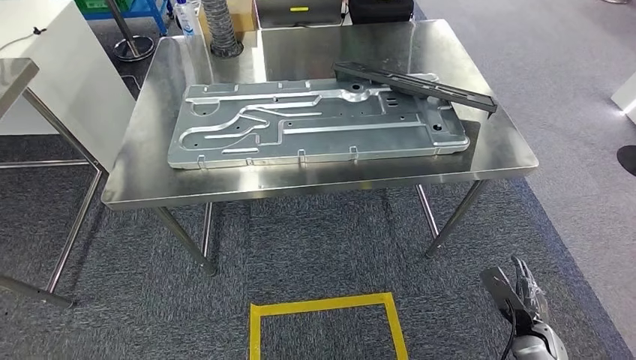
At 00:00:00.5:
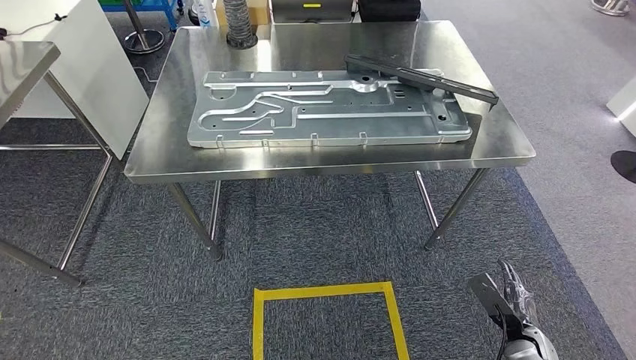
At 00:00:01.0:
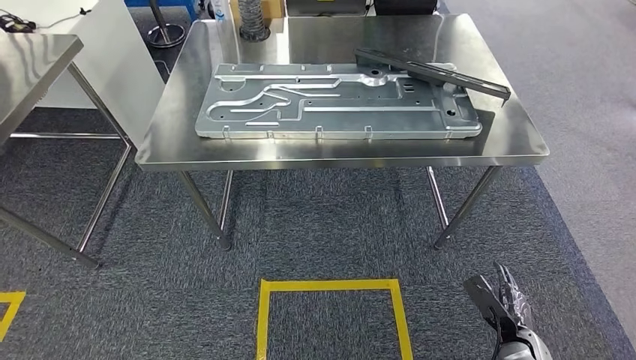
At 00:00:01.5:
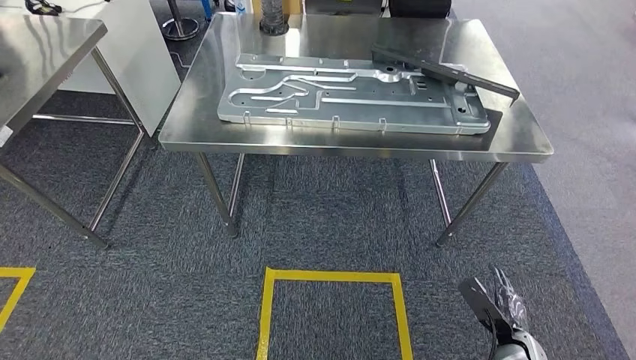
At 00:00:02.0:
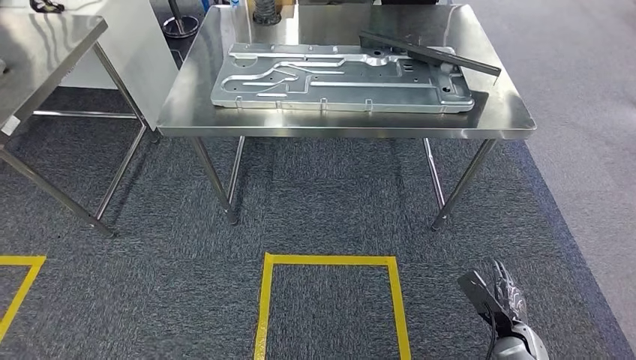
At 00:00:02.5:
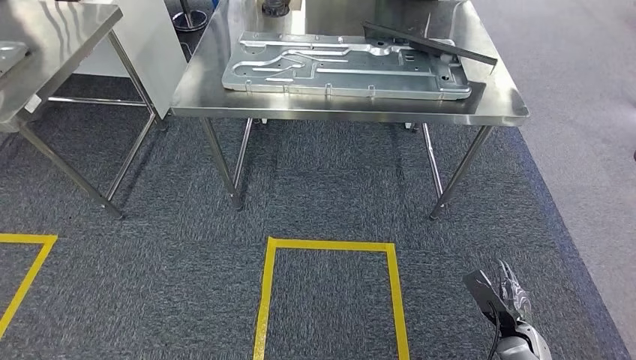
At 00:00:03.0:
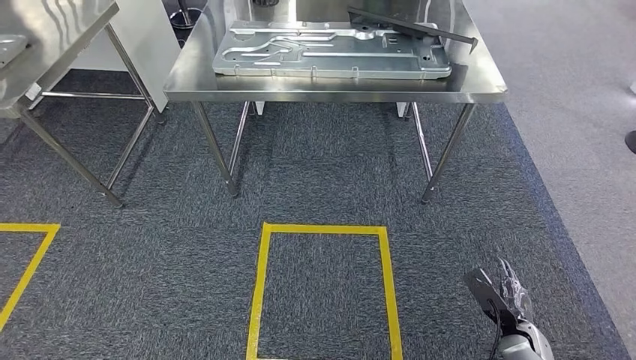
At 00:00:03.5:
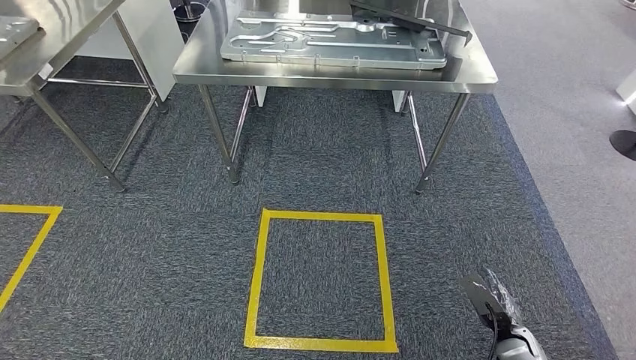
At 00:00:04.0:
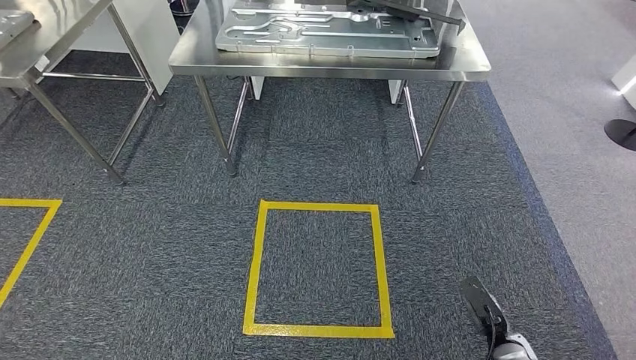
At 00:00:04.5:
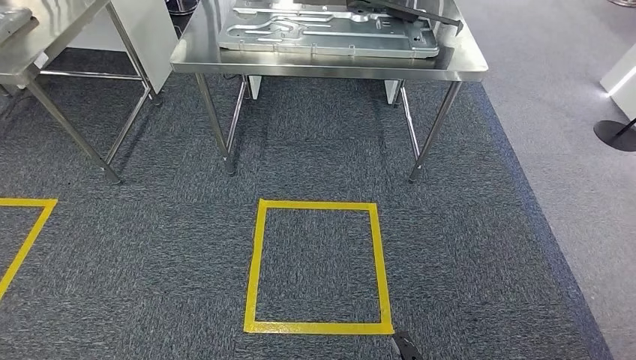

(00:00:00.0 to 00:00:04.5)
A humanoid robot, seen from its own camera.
Step, 00:00:00.0 - 00:00:04.5: Move to the initial position of the shelf.
